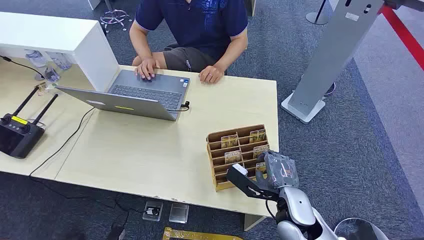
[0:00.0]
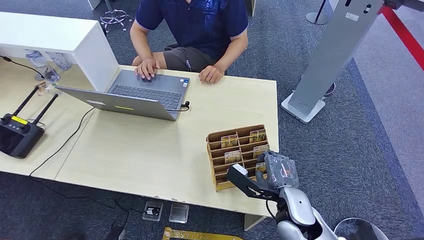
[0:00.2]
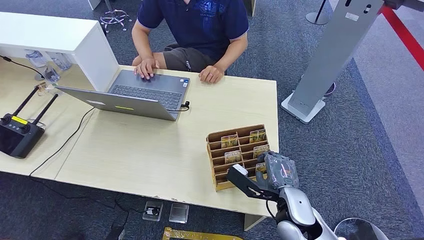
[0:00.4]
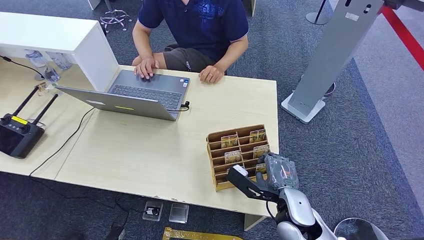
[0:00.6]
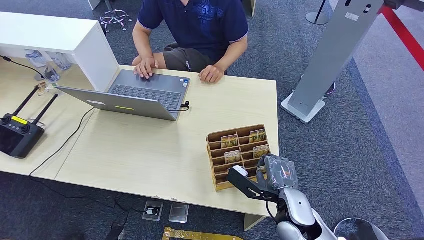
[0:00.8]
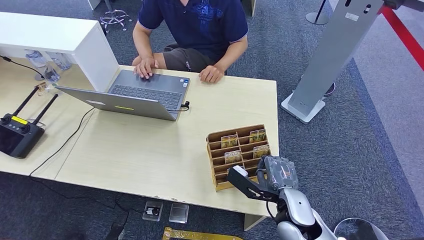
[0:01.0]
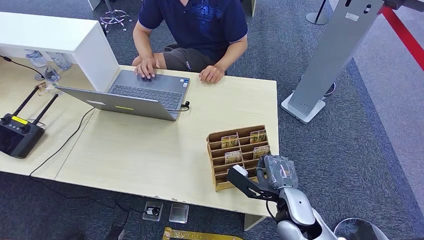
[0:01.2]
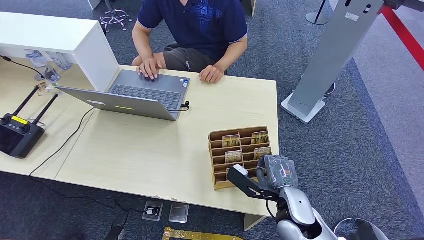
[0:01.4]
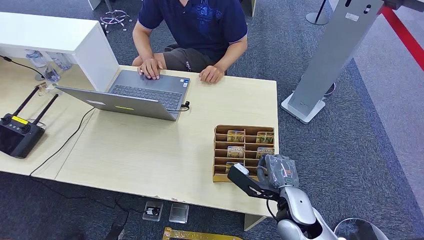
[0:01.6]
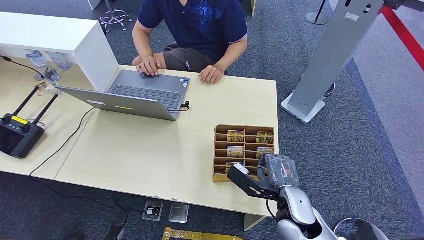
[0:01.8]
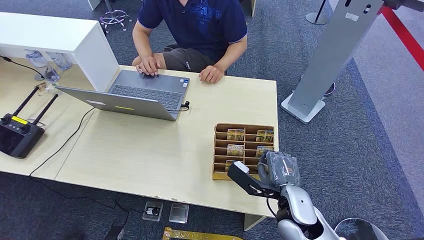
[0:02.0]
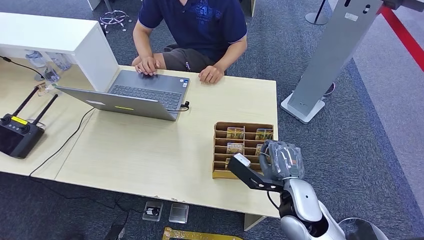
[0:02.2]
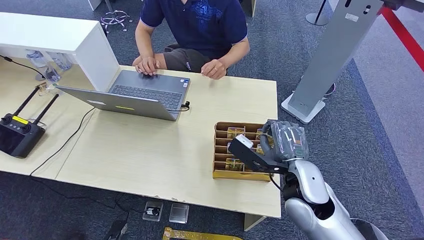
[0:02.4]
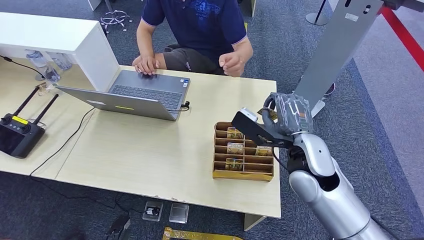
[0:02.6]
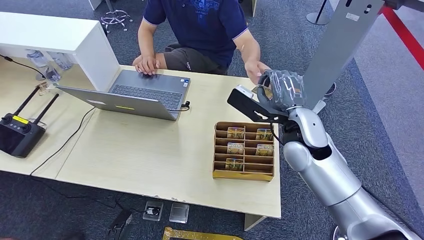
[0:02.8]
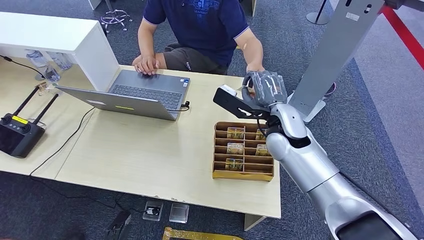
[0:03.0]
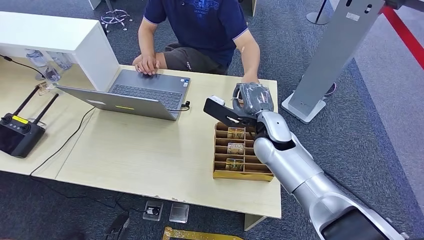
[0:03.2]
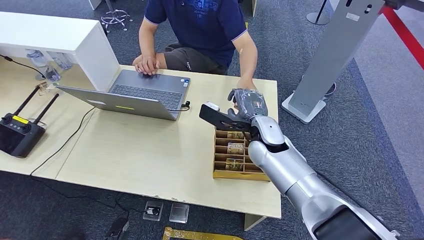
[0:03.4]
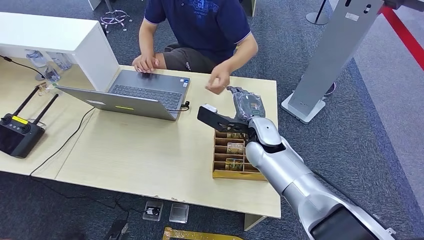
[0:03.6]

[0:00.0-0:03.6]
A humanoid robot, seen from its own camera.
Step, 0:00.0 to 0:02.2: Pick up the room card from the card holder.
Step, 0:02.6 to 0:03.6: Hand the room card to the target.
0:01.8 to 0:03.6: The right hand shifts about 20 cm forward, to the left and upward.
